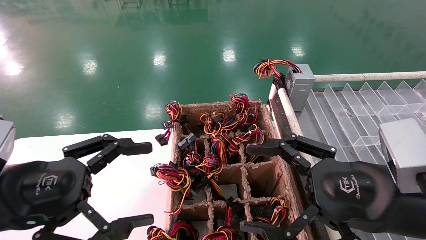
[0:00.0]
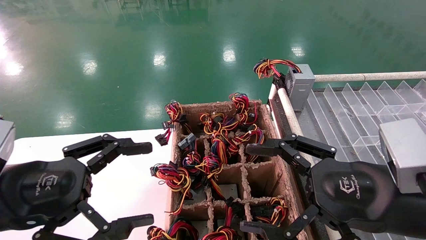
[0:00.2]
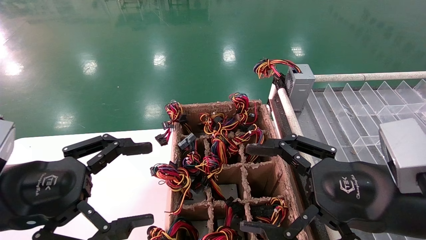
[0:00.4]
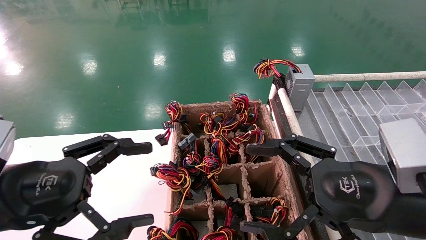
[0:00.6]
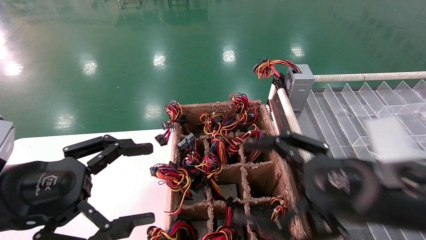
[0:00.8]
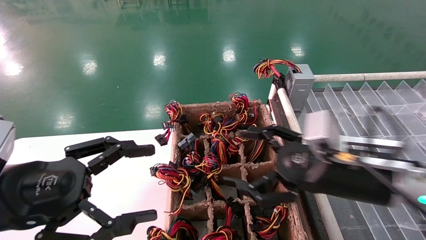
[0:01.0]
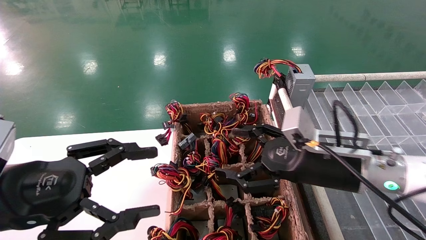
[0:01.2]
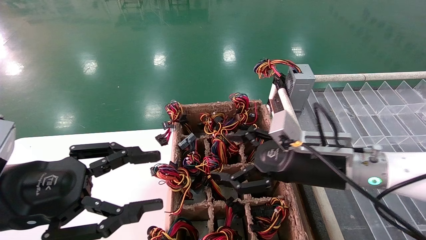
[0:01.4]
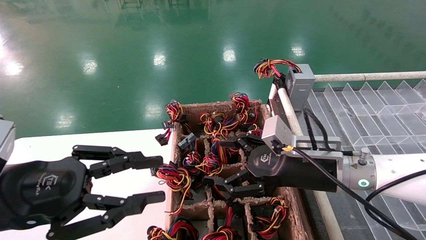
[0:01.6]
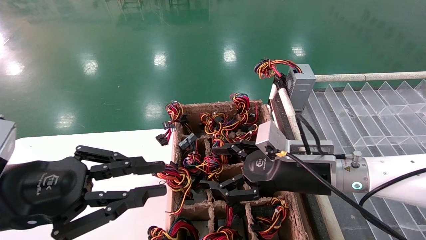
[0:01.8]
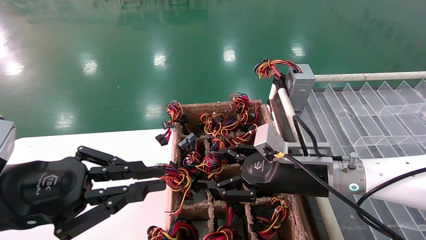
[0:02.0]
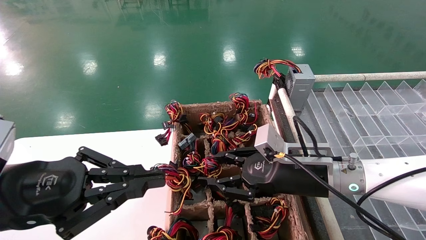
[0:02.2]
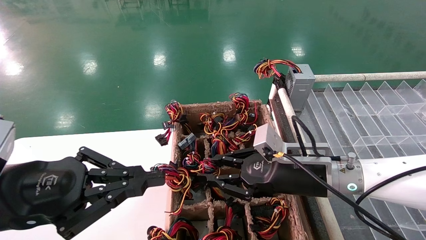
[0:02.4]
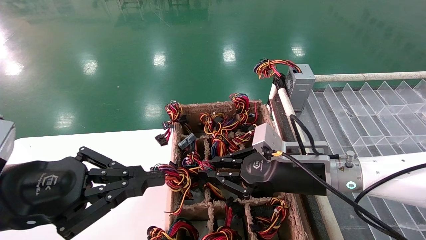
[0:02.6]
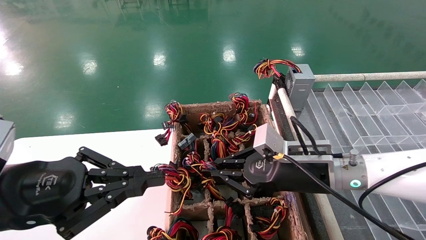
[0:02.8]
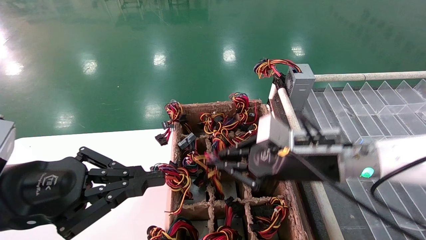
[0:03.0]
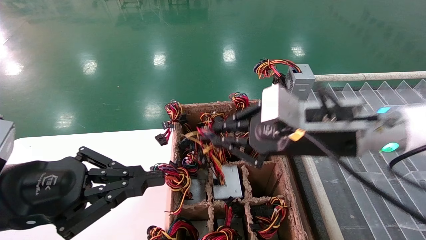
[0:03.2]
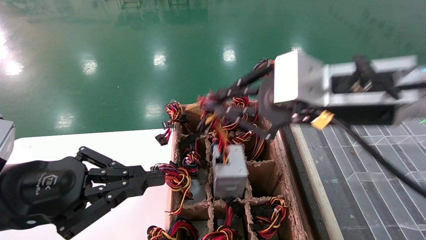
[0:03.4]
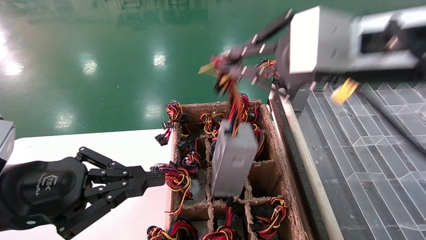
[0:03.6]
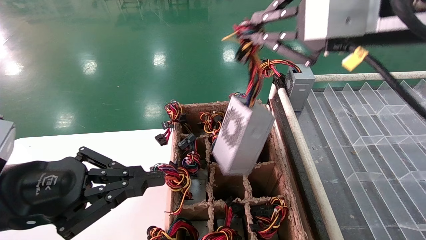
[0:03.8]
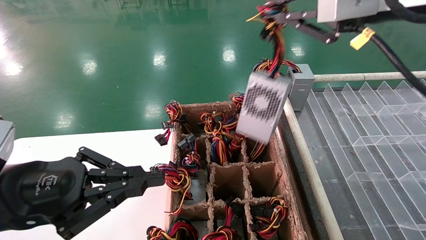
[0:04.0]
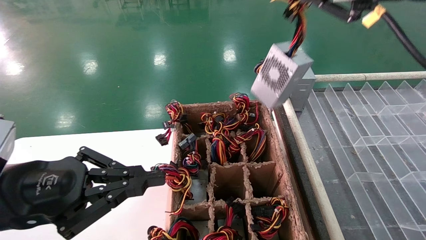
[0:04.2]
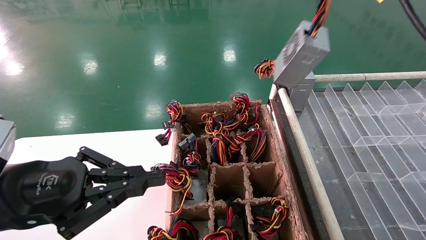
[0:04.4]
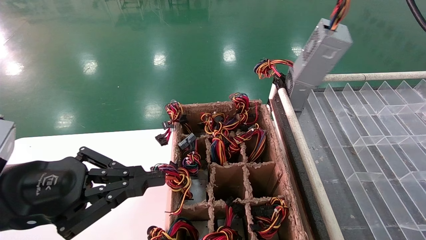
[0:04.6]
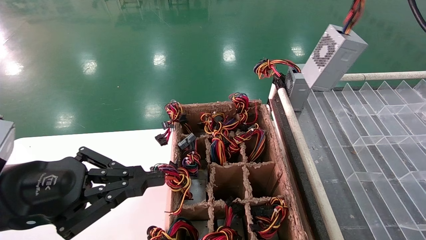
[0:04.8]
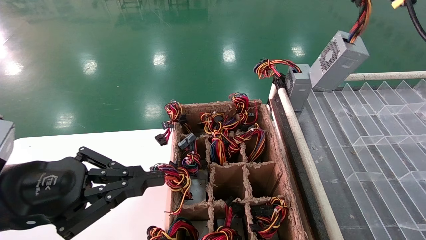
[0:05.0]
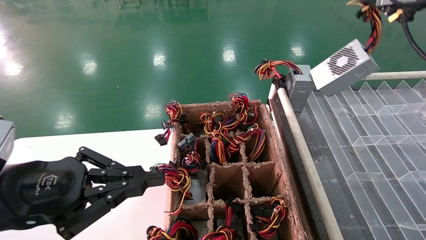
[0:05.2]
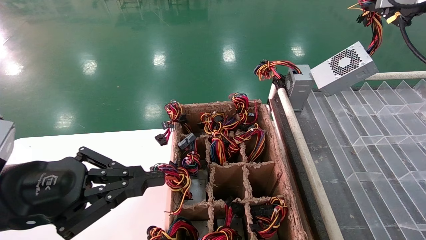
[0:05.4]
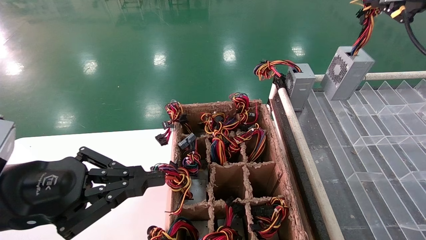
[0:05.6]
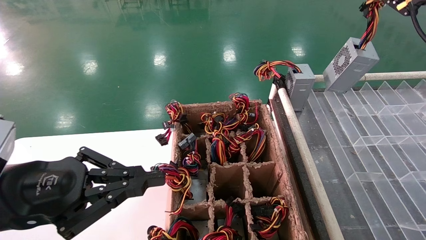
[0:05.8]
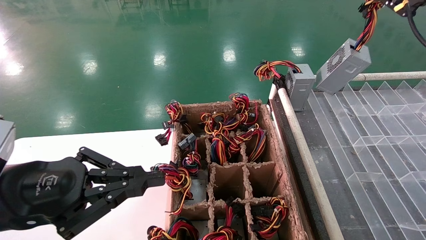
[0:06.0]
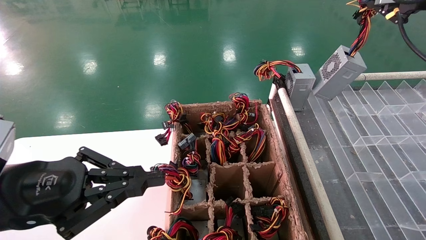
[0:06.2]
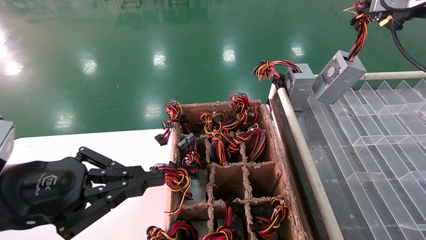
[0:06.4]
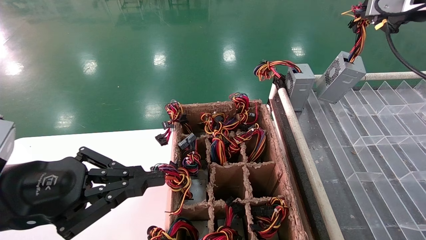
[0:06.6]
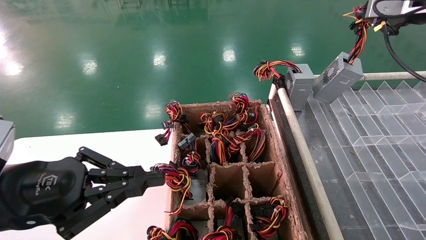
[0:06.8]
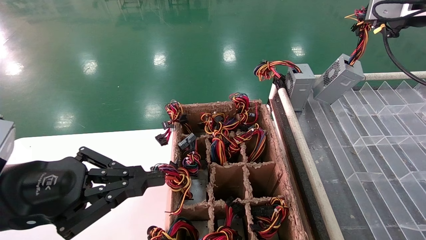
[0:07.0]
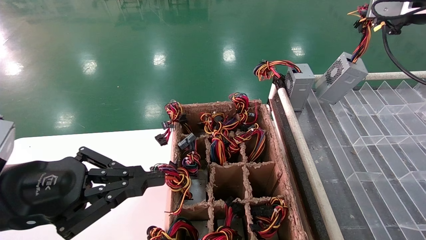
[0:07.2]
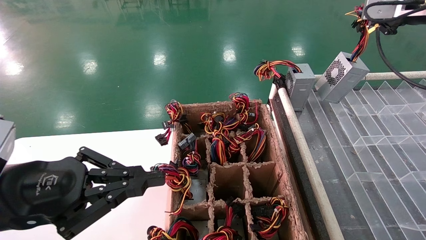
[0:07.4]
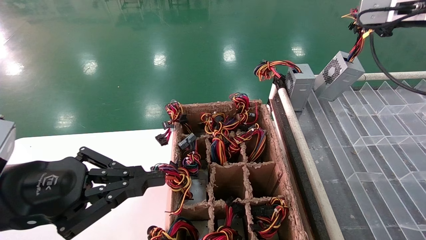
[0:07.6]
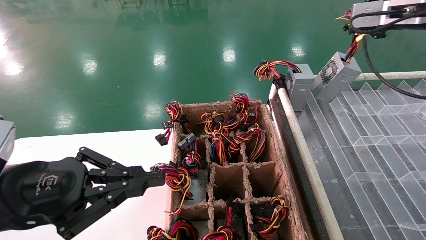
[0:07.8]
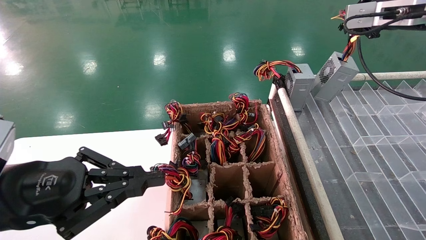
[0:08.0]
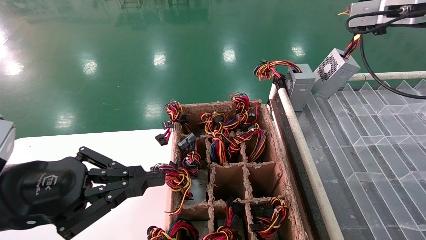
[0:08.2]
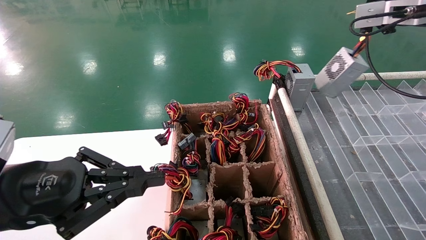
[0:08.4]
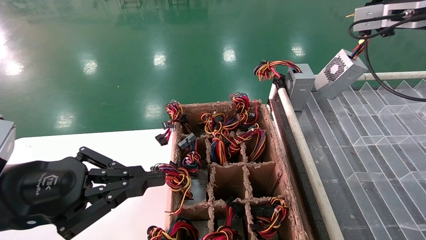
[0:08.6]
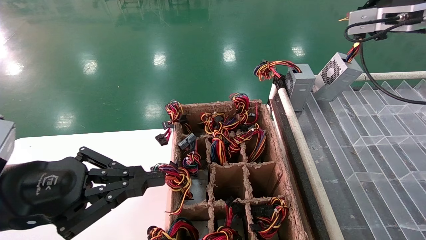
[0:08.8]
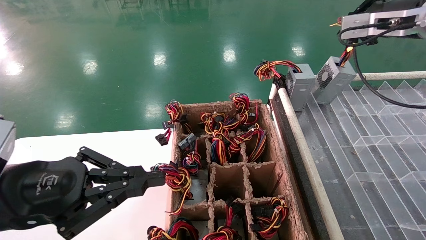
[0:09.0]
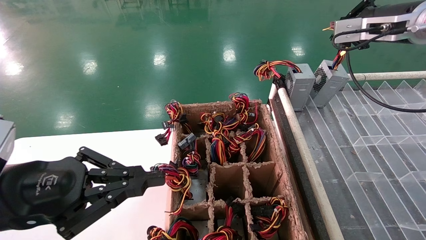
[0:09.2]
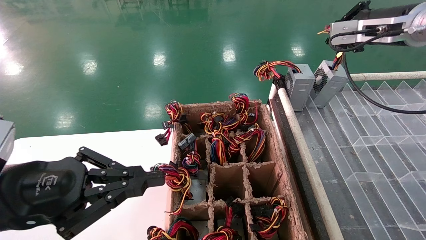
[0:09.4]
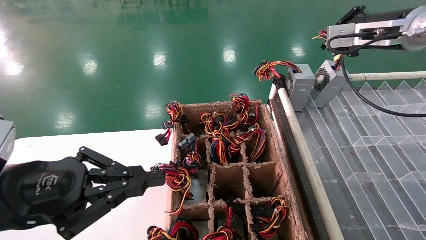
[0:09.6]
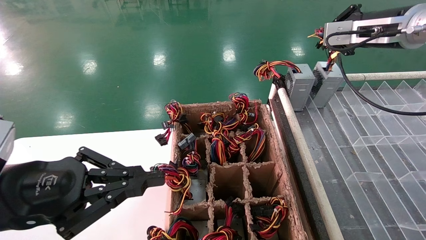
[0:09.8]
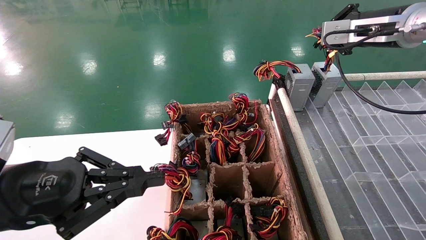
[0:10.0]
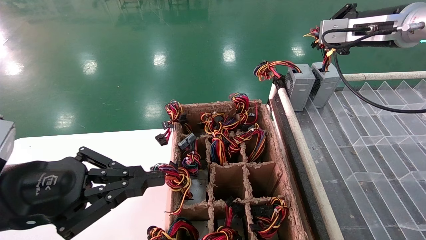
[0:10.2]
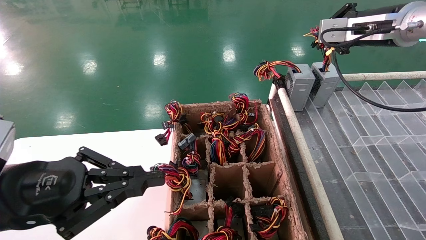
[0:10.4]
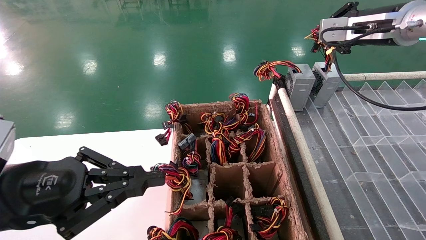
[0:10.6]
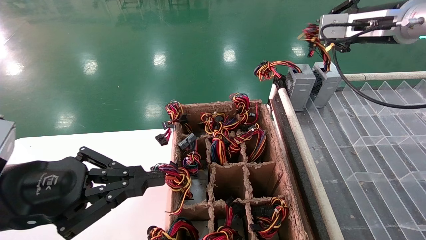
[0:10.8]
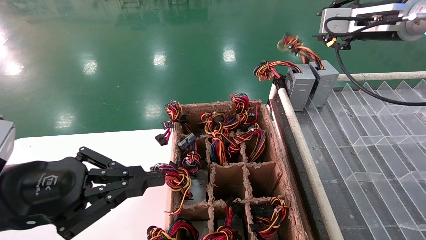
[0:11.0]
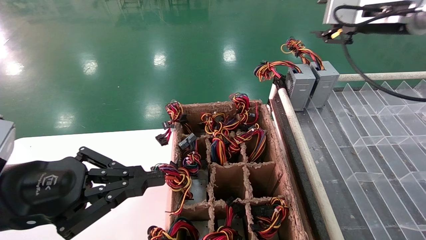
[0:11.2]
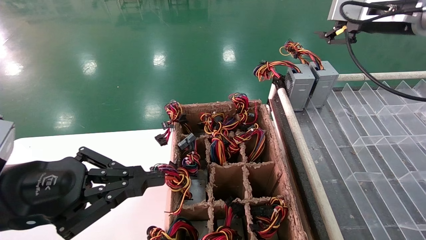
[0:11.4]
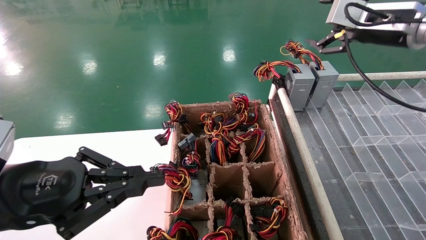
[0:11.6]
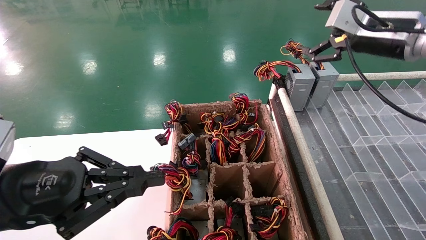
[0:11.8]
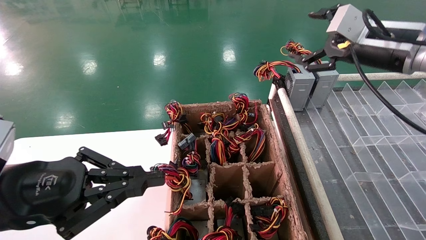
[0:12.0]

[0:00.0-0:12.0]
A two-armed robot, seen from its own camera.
Step, 0:01.0 to 0:02.8: Grab the main unit power supply from the containment box.
Step, 0:03.0 to 0:11.2: Place the main unit power supply in the designated area.
0:00.0 to 0:01.6: The right gripper is displaced forward and to the left by approximately 15 cm. Meanwhile the left gripper closes its fingers.
0:01.6 to 0:03.0: The left gripper closes its fingers, while the right gripper closes up.
0:03.0 to 0:04.4: The right gripper is displaced upward by approximately 25 cm.
0:04.4 to 0:06.0: The right gripper heads to the right and forward, covering about 15 cm.
0:06.0 to 0:07.6: The right gripper heads forward, covering roughly 5 cm.
0:07.6 to 0:09.0: The grippers make only small movements.
0:09.0 to 0:10.4: The grippers stay close to where they were, moving slightly.
0:10.4 to 0:12.0: The right gripper moves downward, roughly 5 cm, and opens up.

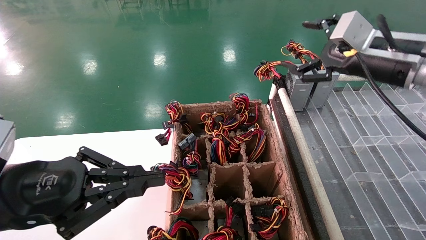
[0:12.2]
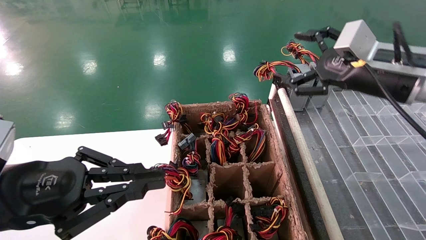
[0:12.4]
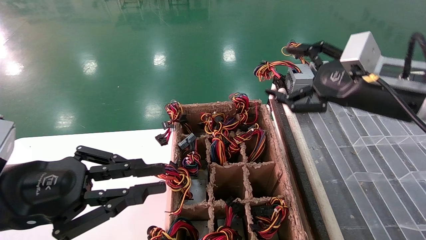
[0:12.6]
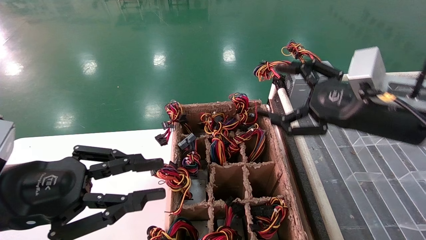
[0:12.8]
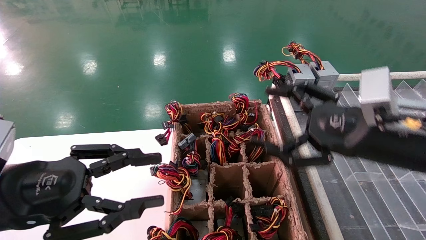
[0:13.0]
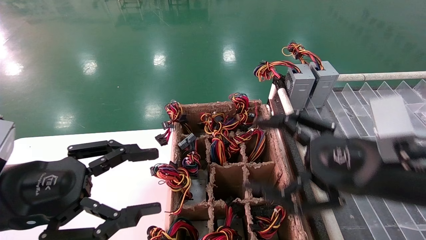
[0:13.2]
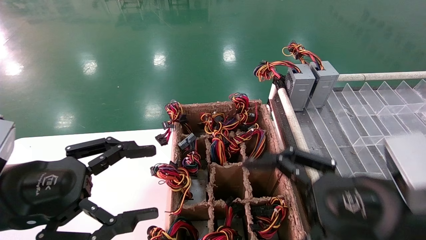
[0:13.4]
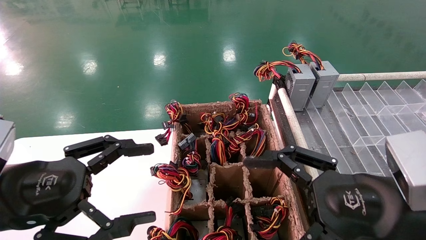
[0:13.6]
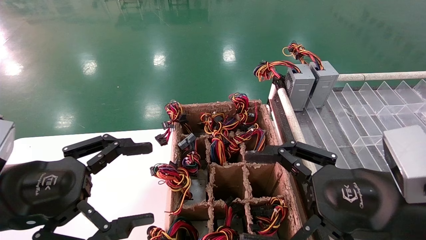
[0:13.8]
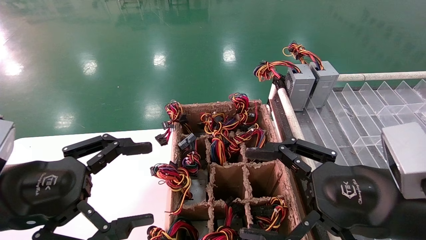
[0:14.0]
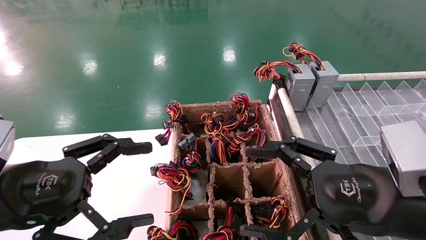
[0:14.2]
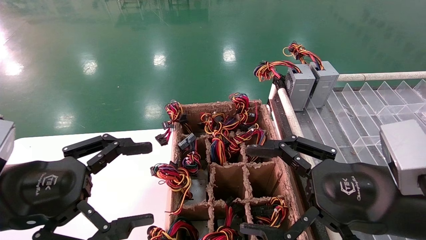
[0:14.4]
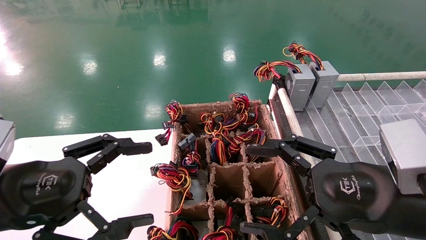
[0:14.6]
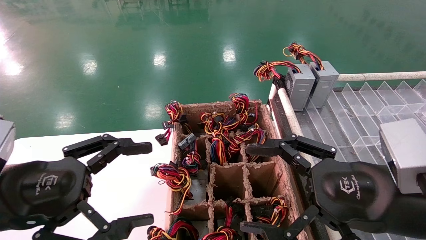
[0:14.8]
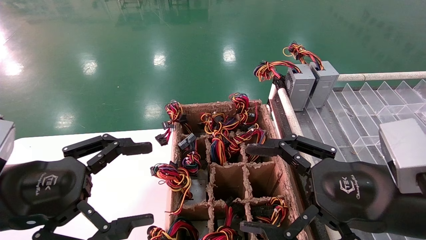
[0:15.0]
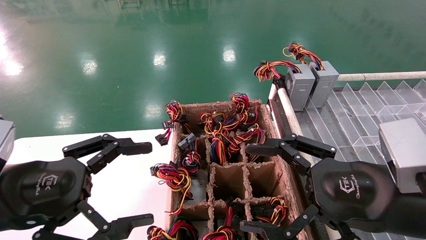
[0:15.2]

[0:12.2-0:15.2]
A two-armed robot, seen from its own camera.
0:12.2 to 0:13.8: The right gripper goes approximately 25 cm backward, downward and to the left. Meanwhile the left gripper opens its fingers.
0:13.8 to 0:15.2: Both grippers stay about where they are.

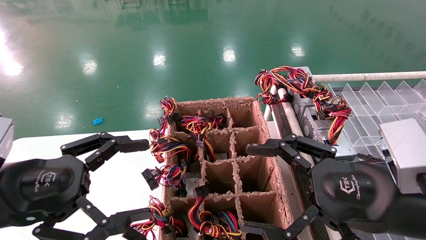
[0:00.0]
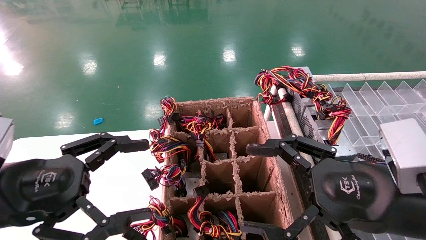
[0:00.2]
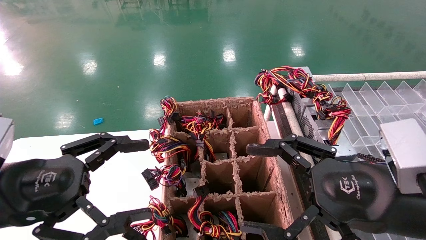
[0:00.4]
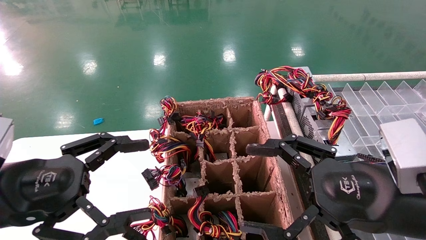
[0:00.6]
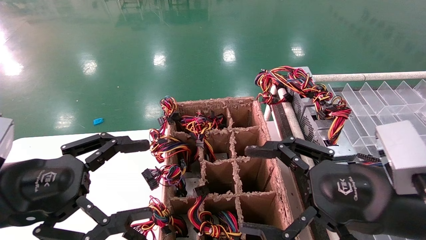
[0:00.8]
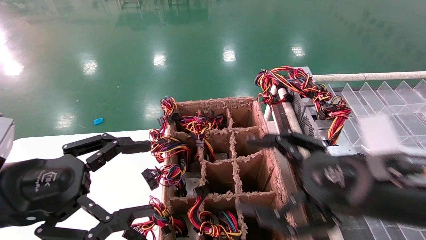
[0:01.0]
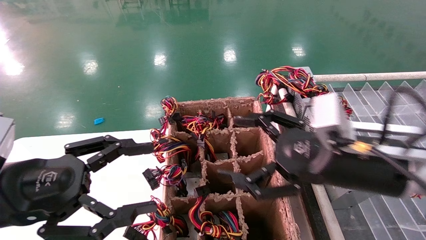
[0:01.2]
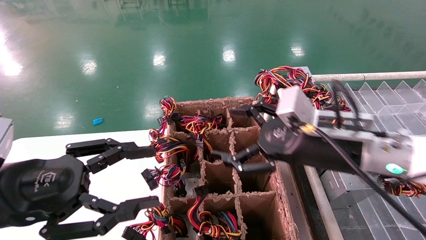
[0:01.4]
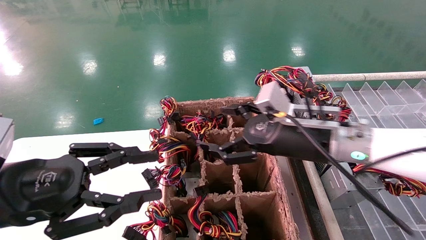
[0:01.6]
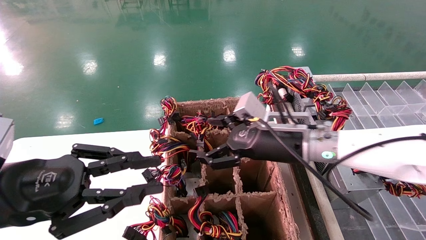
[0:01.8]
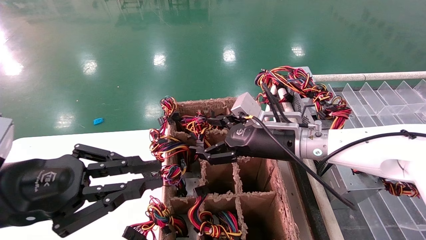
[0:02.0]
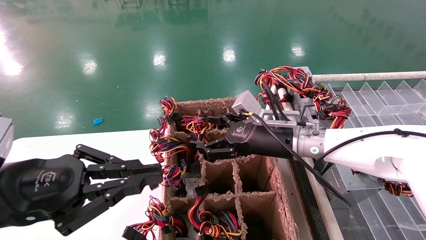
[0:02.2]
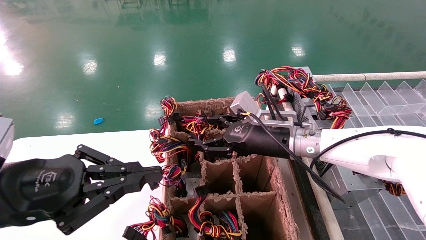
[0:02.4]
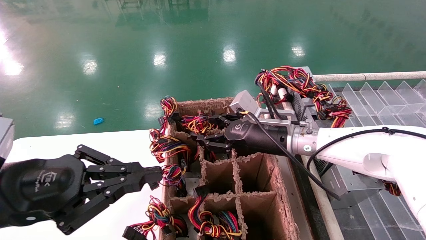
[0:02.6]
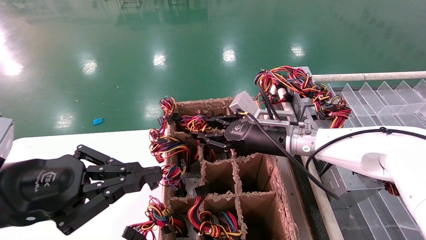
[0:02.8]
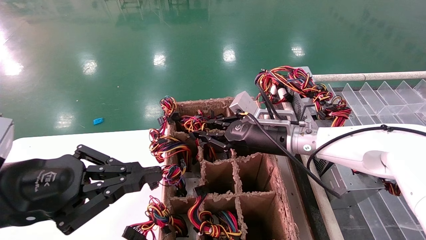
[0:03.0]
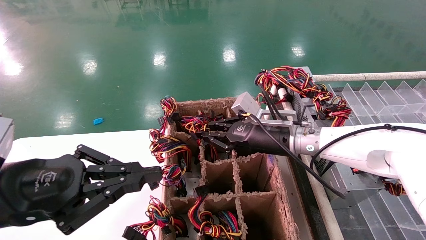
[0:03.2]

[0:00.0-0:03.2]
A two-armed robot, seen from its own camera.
0:00.0 to 0:01.6: The left gripper closes up. Meanwhile the right gripper shifts about 15 cm forward and to the left.
0:01.6 to 0:03.2: The left gripper closes; the right gripper goes roughly 10 cm forward, and closes.
